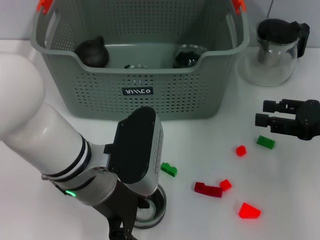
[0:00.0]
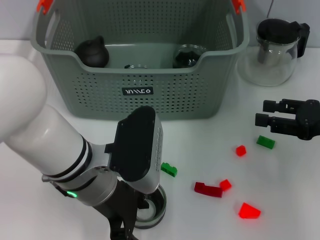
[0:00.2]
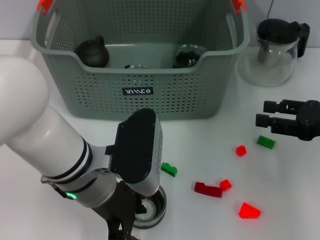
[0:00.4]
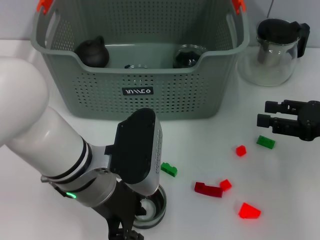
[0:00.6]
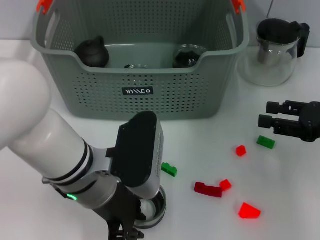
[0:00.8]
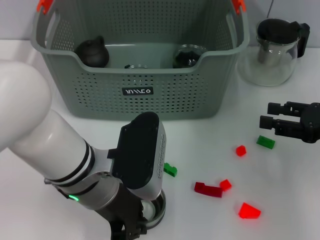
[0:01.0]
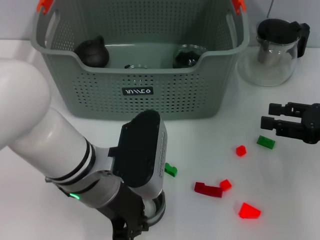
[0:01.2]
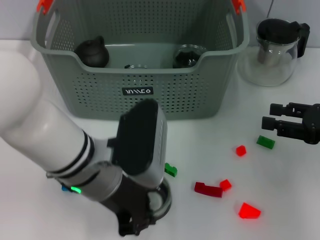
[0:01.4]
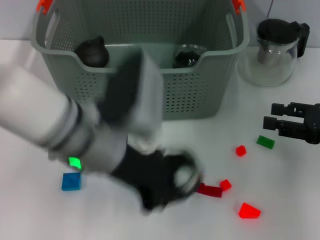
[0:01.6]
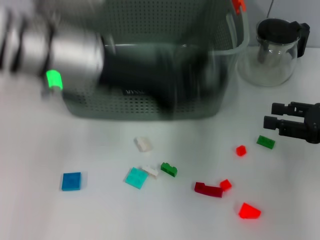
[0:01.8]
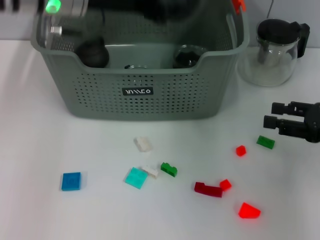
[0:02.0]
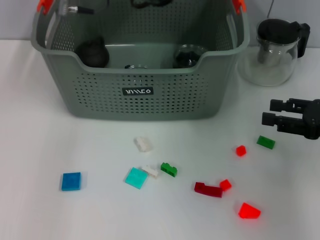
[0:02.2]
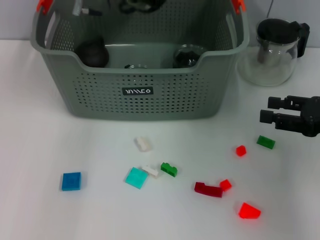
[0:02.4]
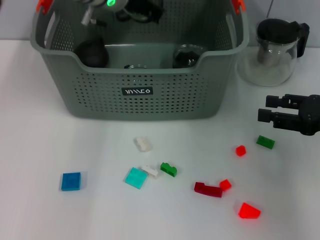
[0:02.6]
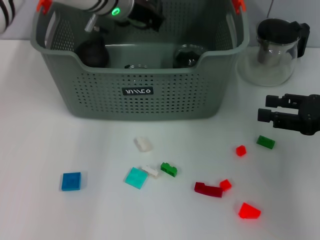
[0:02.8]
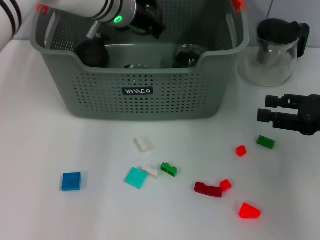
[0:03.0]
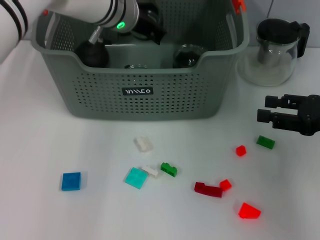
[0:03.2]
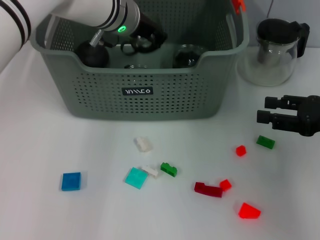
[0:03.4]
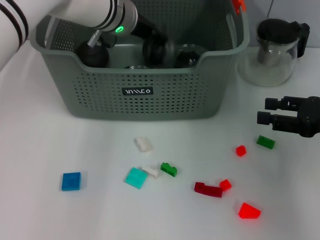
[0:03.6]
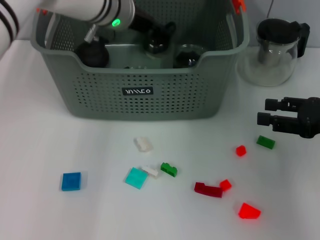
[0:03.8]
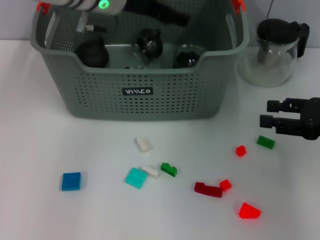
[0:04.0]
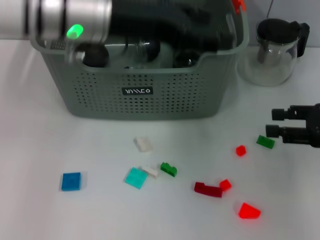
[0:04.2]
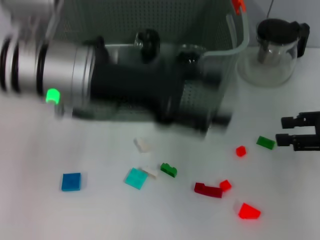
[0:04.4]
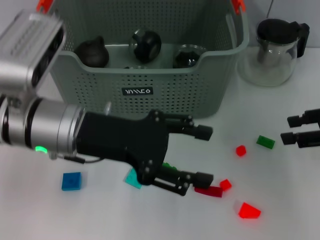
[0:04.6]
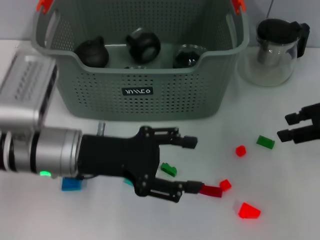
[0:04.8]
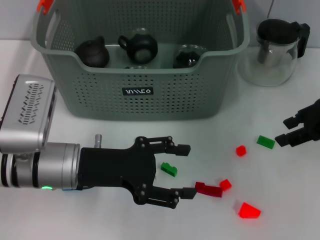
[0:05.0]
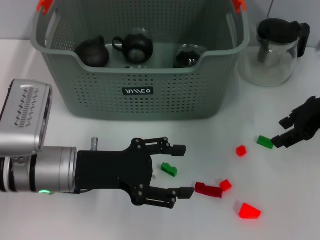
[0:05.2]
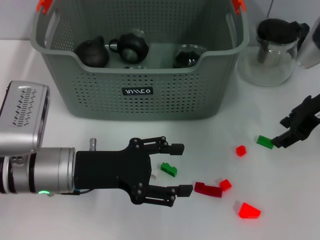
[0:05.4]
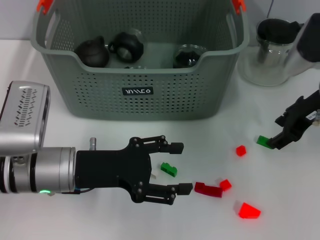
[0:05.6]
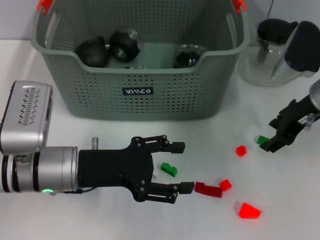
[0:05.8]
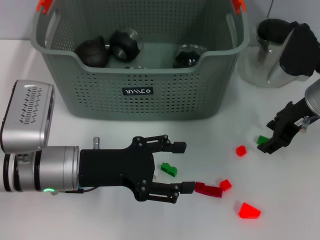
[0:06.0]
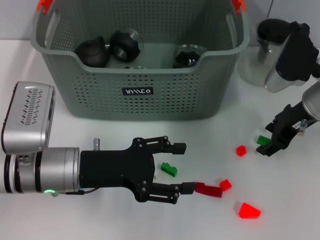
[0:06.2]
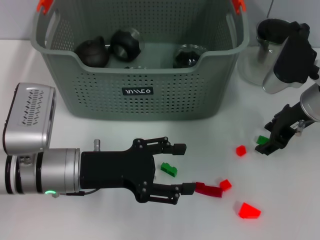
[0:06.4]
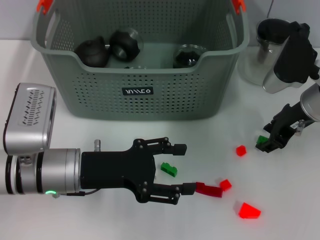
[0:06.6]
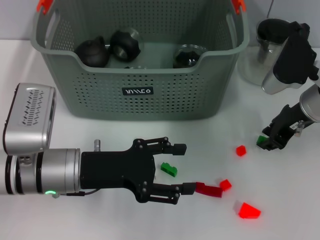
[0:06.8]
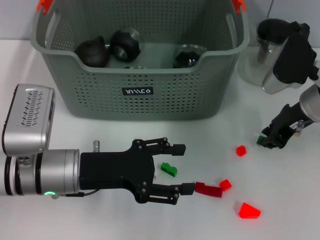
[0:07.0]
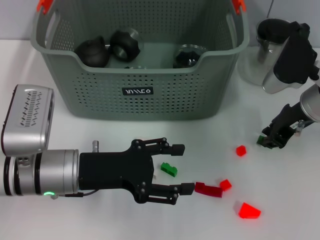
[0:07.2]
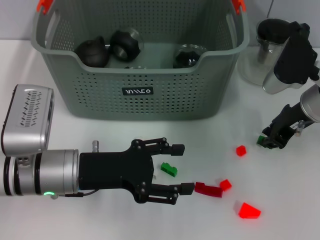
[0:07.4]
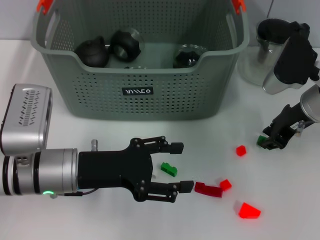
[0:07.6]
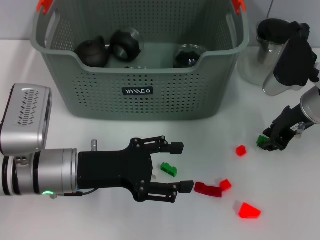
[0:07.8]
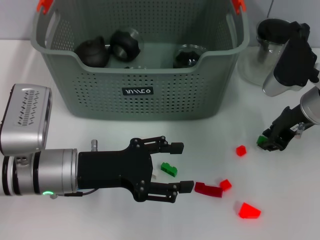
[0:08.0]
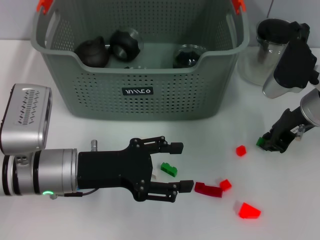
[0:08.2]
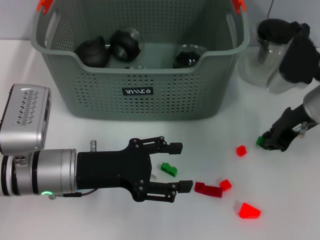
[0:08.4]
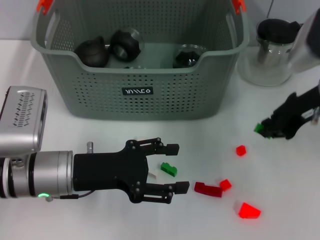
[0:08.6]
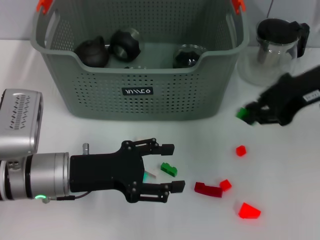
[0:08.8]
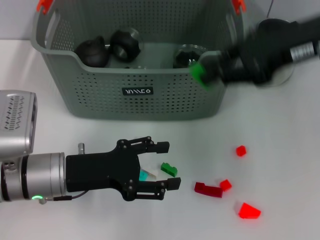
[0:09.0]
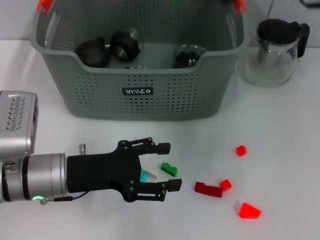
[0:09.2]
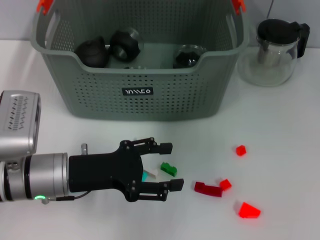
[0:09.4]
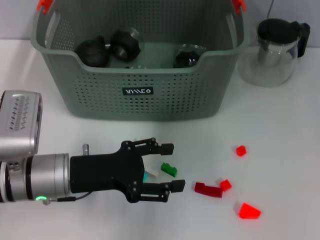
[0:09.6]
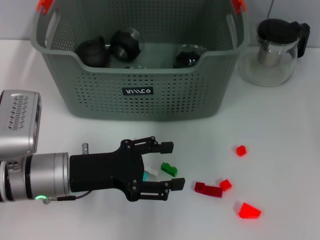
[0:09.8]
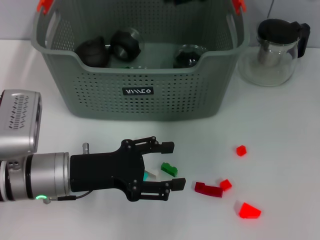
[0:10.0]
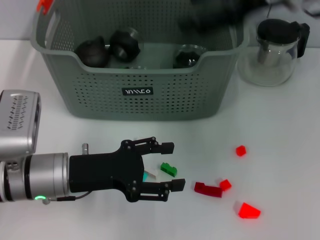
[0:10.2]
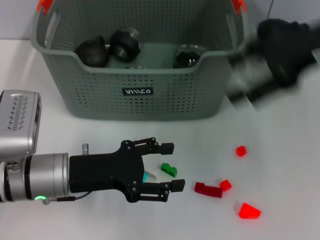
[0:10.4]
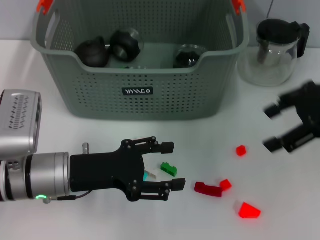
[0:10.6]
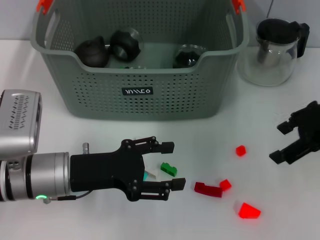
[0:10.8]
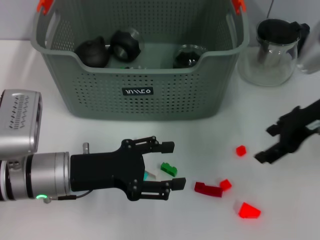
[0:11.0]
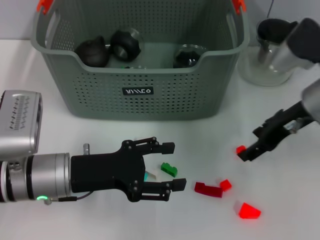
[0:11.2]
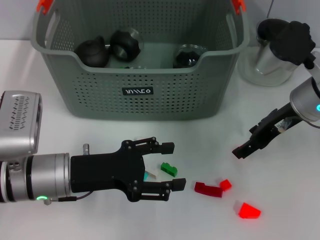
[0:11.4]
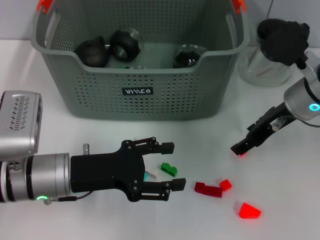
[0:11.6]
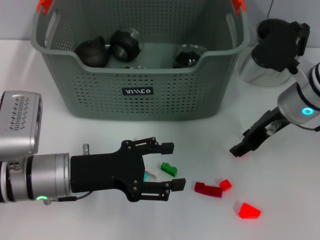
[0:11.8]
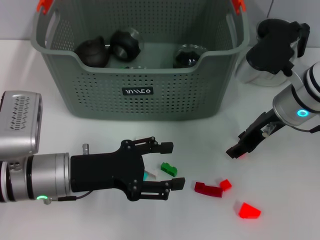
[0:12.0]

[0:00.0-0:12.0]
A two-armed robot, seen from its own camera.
Task of the whole recording: pick up the teacup on the table and place it into the storage bin, pick up the block on the table and place it into the storage bin.
Step, 0:01.2 to 0:03.8: Place the cup in the storage box with left gripper.
Step, 0:04.2 to 0:08.2: Grasp the green block with right gripper.
Step, 0:08.4 to 0:09.6: Place the green block in the storage box with right gripper.
0:00.0 to 0:01.6: The left gripper is displaced upward by roughly 5 cm, and closes.
0:01.6 to 0:03.0: The left gripper goes approximately 20 cm forward.
0:03.0 to 0:04.4: The left gripper is displaced backward by about 15 cm, and opens.
0:04.4 to 0:06.0: The left gripper moves downward and backward, some 15 cm. Meanwhile the right gripper is displaced to the left and forward by about 15 cm.
0:06.0 to 0:07.6: The right gripper closes up.
0:07.6 to 0:09.0: The right gripper is displaced upward by roughly 15 cm.
0:09.0 to 0:10.4: The right gripper goes forward and returns, some 10 cm each way, and opens.
0:10.4 to 0:12.0: The right gripper moves downward, approximately 15 cm.

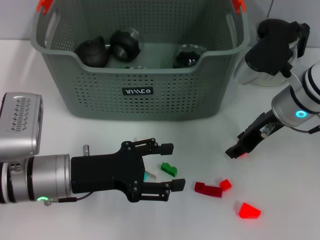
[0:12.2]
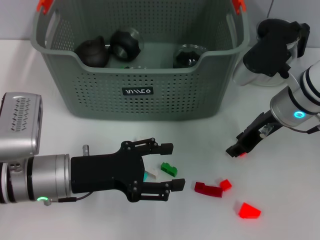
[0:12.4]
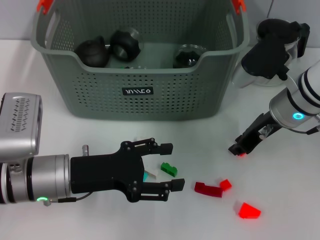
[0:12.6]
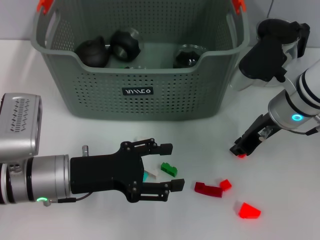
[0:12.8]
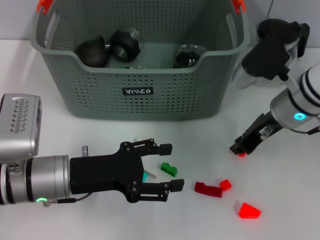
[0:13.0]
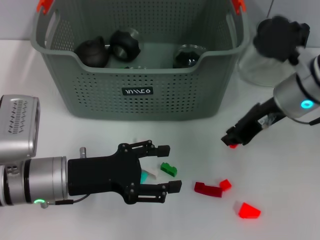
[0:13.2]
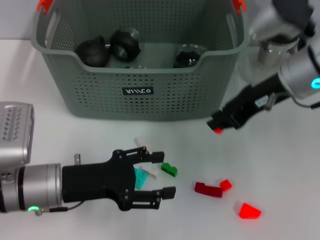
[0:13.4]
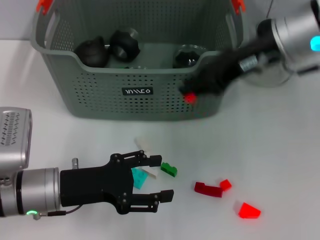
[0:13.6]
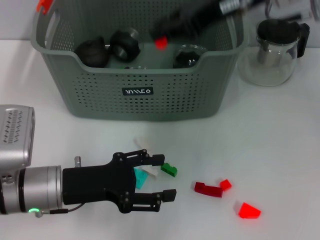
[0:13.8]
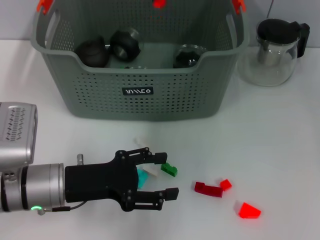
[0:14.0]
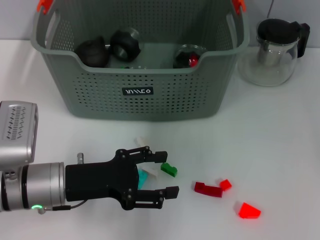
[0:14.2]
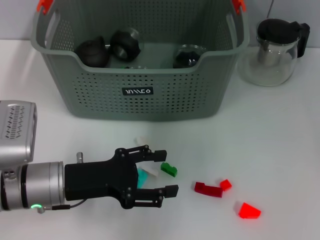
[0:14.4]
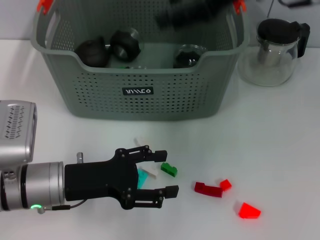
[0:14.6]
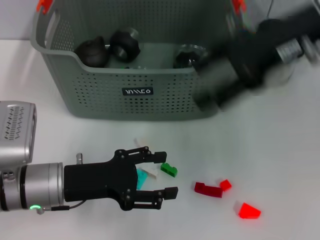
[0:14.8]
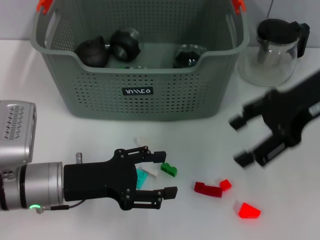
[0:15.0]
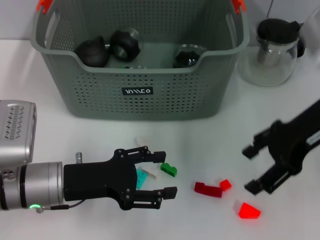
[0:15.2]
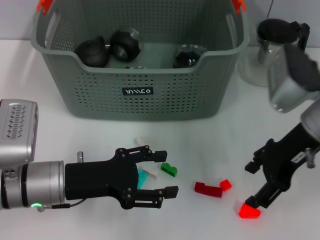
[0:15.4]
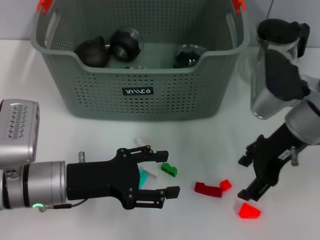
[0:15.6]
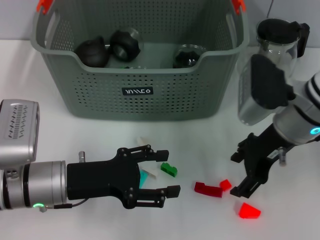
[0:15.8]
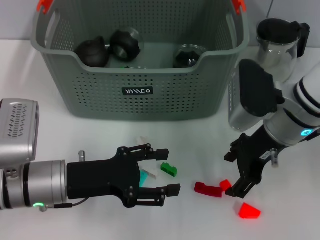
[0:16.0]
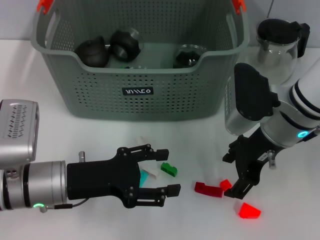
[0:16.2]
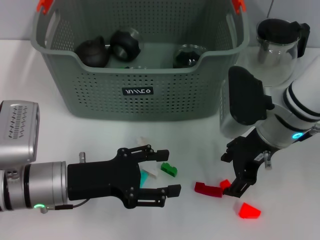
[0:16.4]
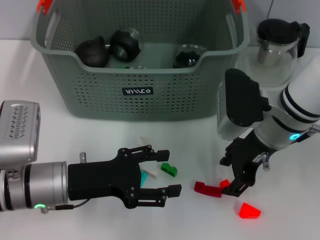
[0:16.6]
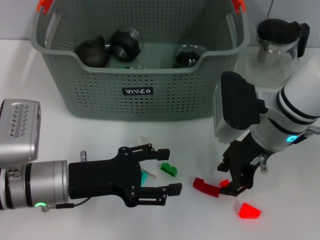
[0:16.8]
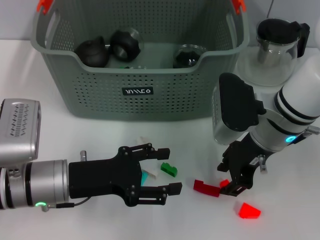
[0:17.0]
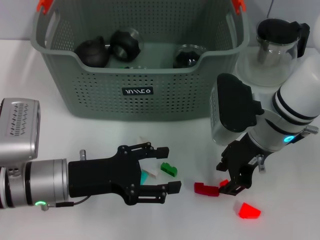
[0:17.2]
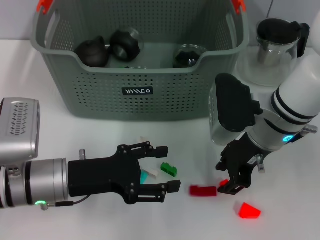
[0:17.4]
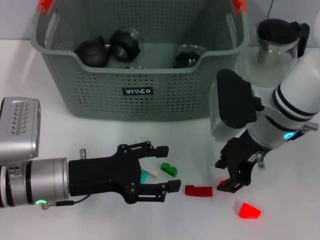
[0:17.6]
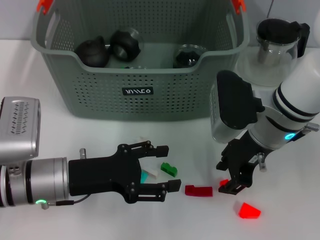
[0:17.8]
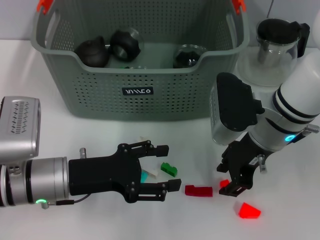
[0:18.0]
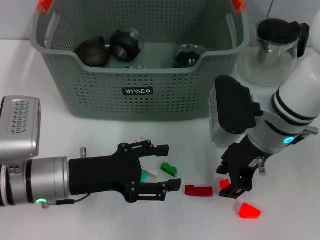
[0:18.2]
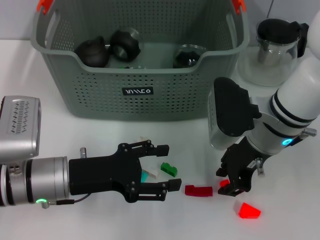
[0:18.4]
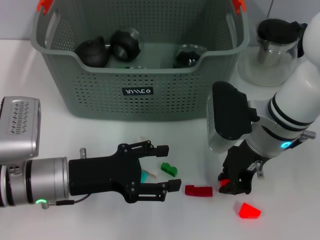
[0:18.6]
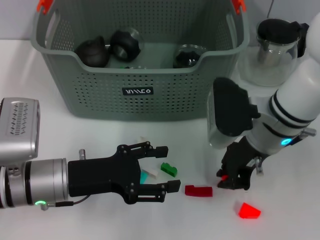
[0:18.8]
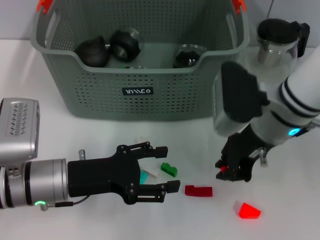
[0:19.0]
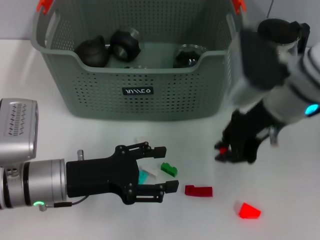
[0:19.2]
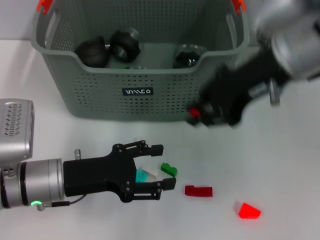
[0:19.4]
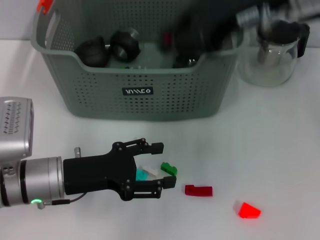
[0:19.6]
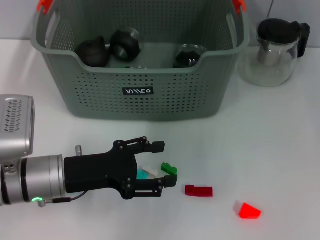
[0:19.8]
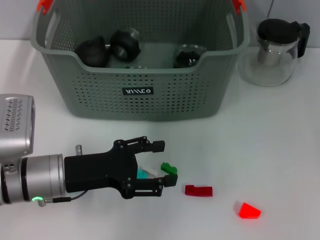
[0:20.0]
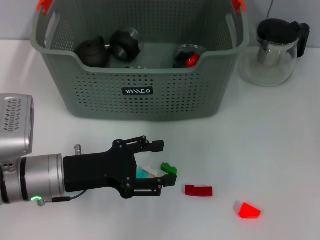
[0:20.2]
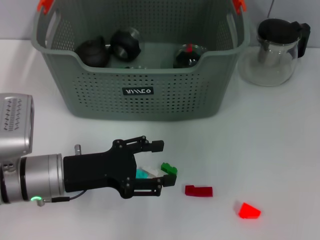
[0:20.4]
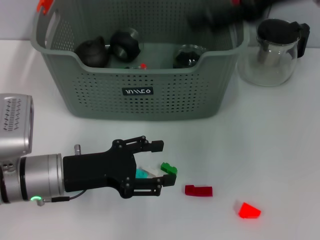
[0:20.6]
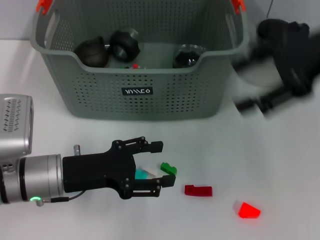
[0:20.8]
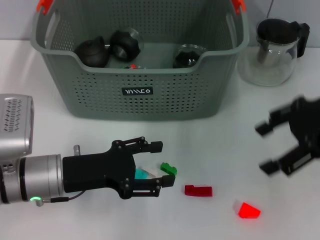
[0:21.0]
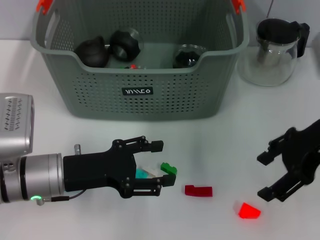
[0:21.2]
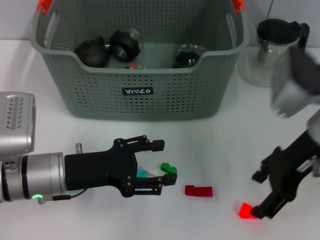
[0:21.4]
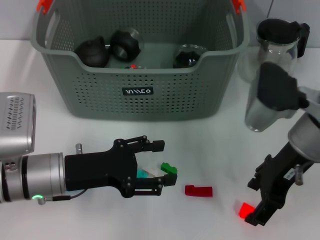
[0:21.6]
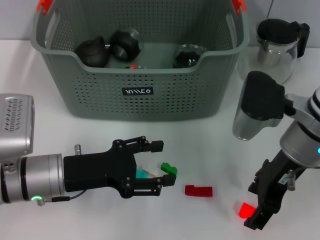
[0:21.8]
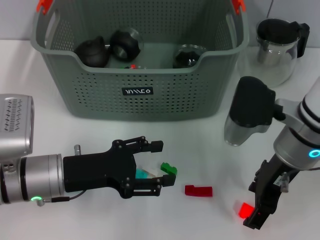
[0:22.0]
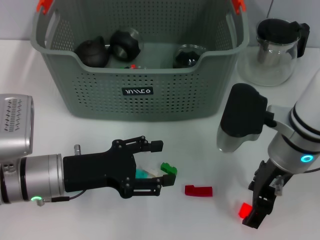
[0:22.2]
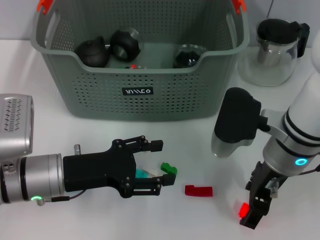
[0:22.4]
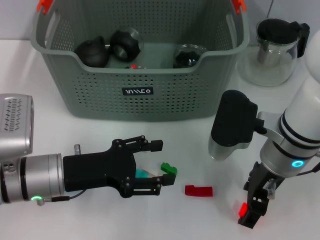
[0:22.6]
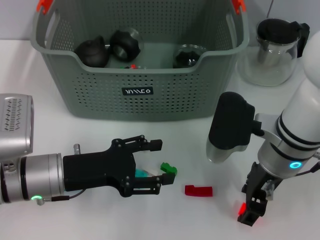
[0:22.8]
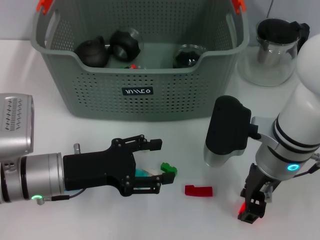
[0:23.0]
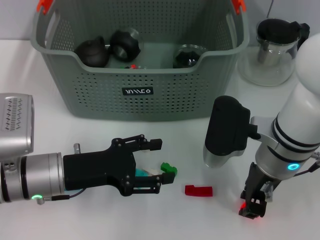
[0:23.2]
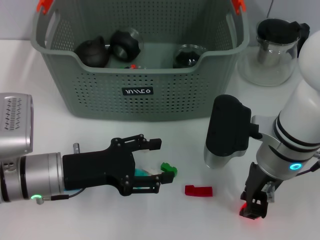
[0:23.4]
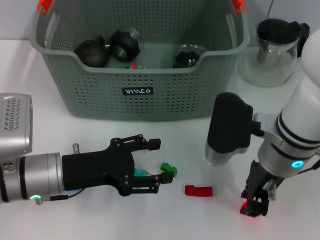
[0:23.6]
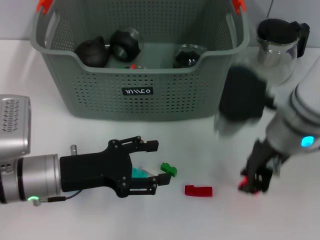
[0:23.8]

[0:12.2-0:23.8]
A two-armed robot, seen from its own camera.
Task of the whole recording: pick up the teacup on the table and place it into the storage bin, pick up the block on the table and place it into the storage bin.
Step, 0:13.0 to 0:14.2: Place the orange block in the storage box with right gripper.
Step, 0:14.4 to 0:18.6: Grasp the orange block with right gripper.
Step, 0:18.8 to 0:20.2: Place the orange block in the storage box with right gripper.
Step, 0:20.4 to 0:23.2: Grasp the orange block with right gripper.
0:12.2 to 0:13.6: The right gripper heads upward, covering roughly 15 cm, and closes up.
0:13.6 to 0:15.0: The right gripper shifts roughly 5 cm to the right, and opens up.
0:15.0 to 0:16.6: The right gripper moves downward and to the left, some 15 cm.
0:16.6 to 0:18.0: Both grippers stay about where they are.
0:18.0 to 0:19.4: The right gripper moves upward, some 15 cm, and closes.
0:19.4 to 0:21.0: The right gripper heads to the right, covering roughly 10 cm, and opens.
0:21.0 to 0:22.4: The right gripper is displaced to the left and downward by about 15 cm.
0:22.4 to 0:23.8: The right gripper closes up.
